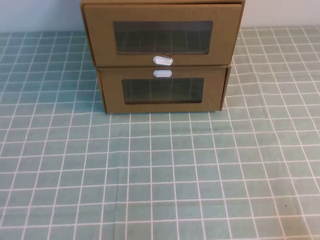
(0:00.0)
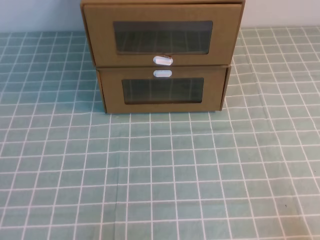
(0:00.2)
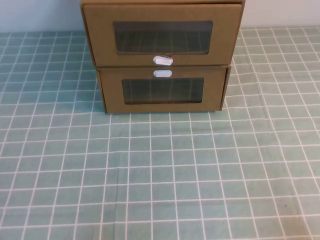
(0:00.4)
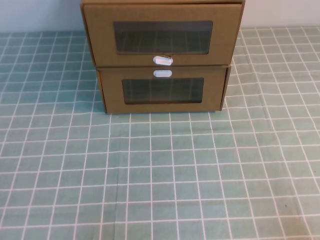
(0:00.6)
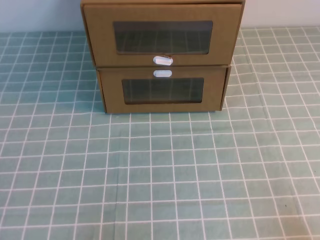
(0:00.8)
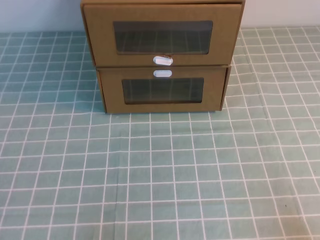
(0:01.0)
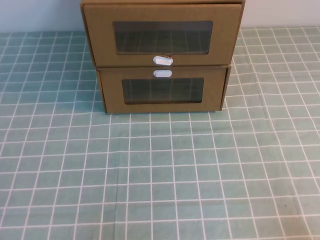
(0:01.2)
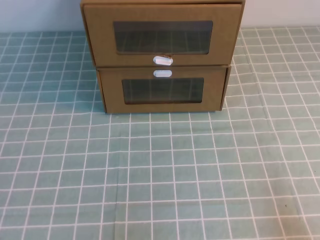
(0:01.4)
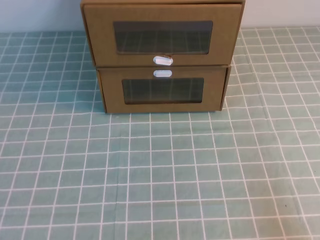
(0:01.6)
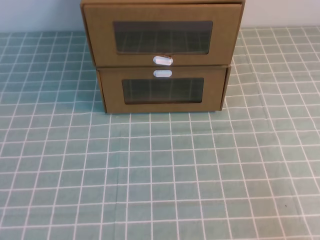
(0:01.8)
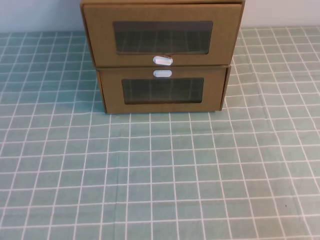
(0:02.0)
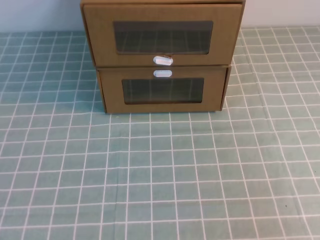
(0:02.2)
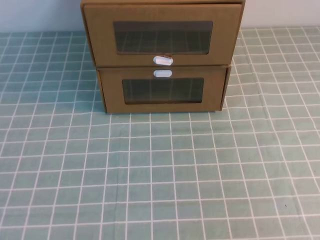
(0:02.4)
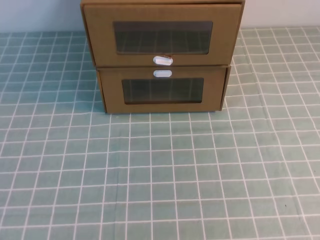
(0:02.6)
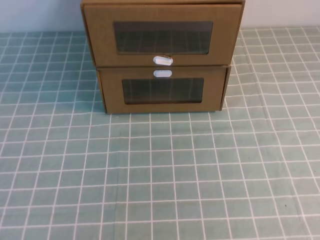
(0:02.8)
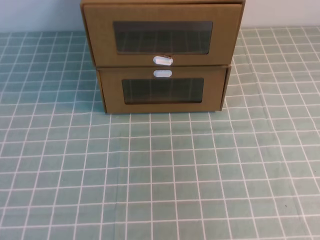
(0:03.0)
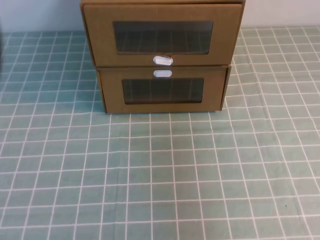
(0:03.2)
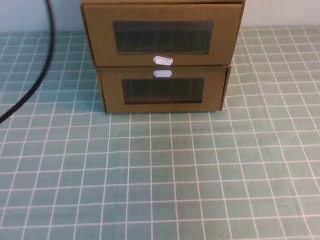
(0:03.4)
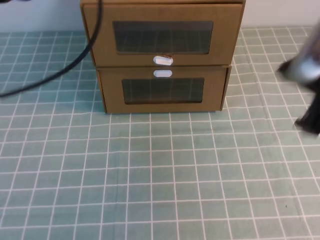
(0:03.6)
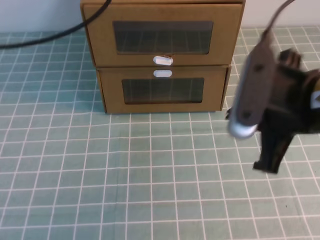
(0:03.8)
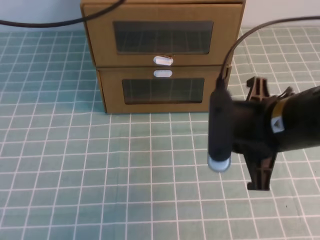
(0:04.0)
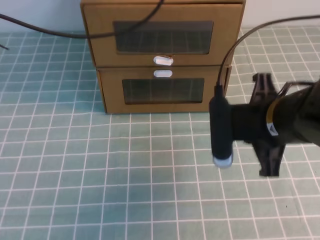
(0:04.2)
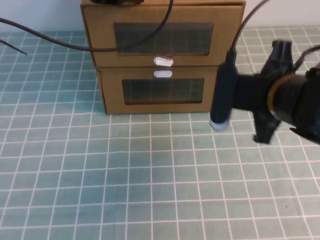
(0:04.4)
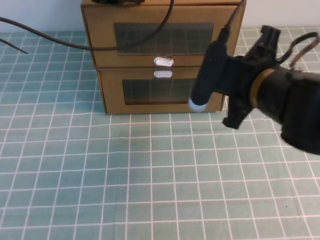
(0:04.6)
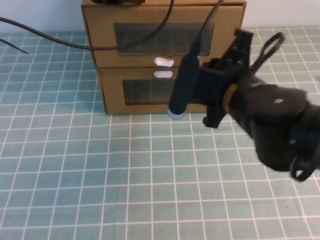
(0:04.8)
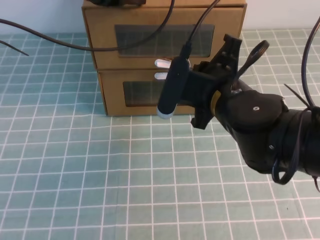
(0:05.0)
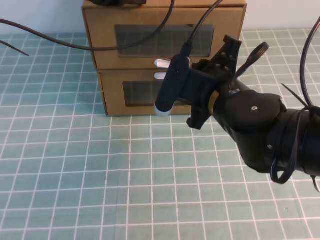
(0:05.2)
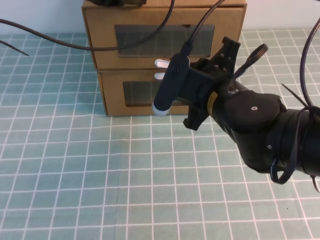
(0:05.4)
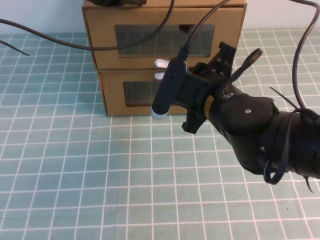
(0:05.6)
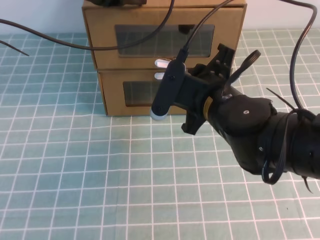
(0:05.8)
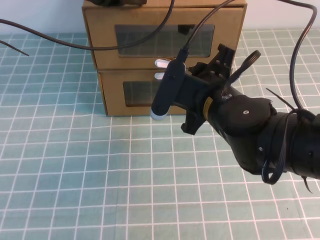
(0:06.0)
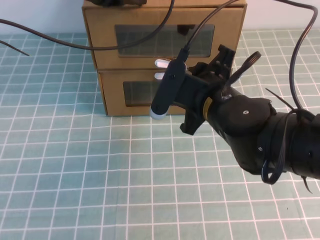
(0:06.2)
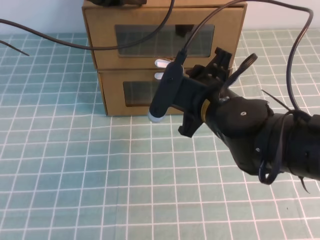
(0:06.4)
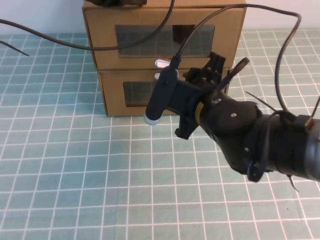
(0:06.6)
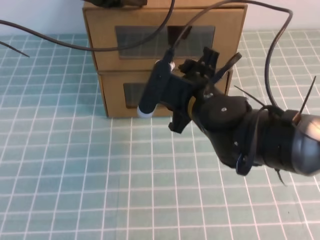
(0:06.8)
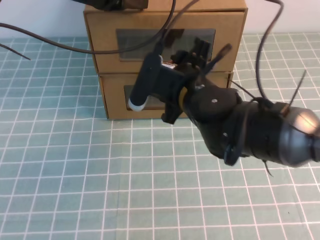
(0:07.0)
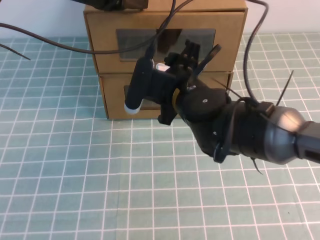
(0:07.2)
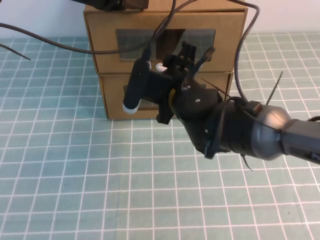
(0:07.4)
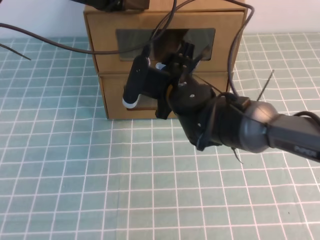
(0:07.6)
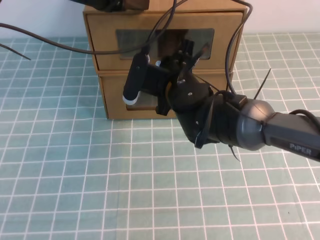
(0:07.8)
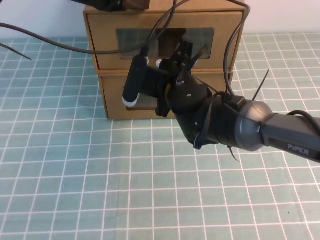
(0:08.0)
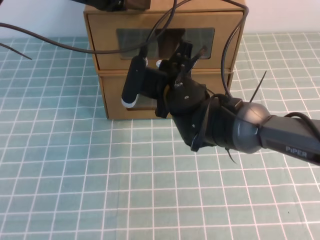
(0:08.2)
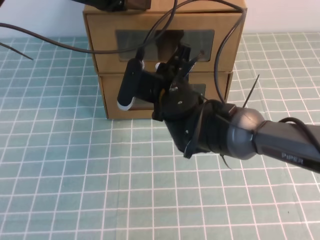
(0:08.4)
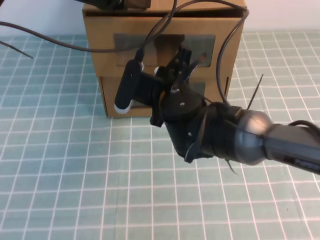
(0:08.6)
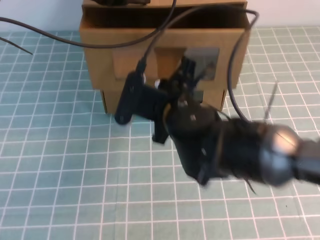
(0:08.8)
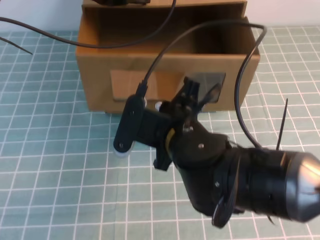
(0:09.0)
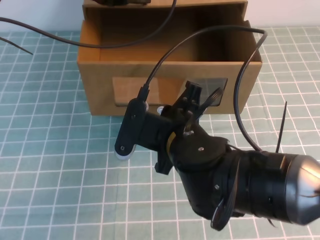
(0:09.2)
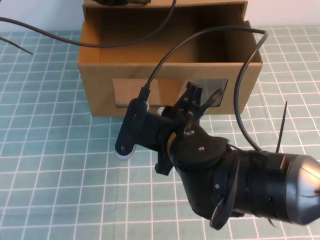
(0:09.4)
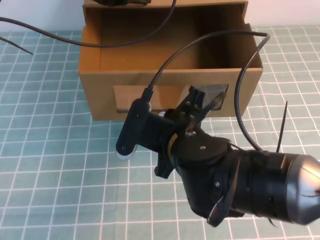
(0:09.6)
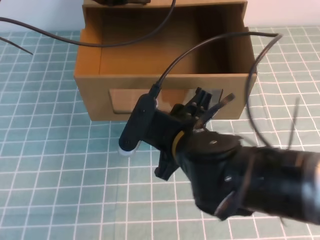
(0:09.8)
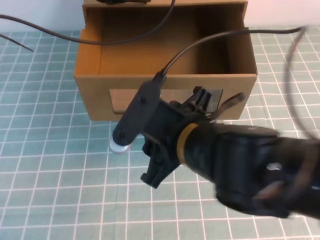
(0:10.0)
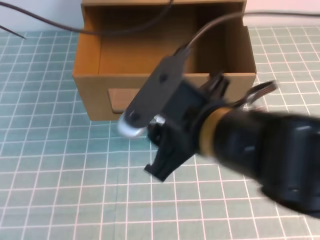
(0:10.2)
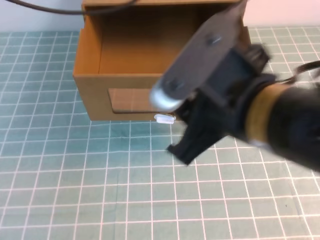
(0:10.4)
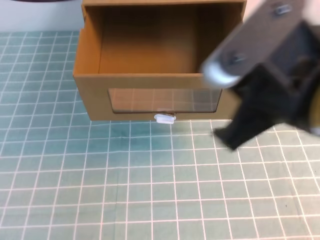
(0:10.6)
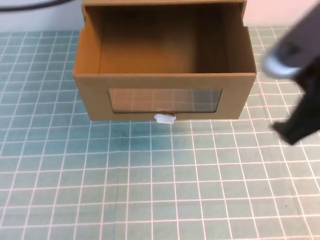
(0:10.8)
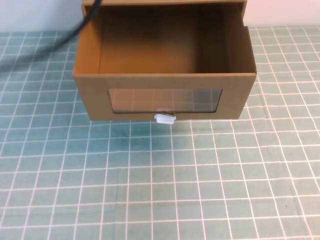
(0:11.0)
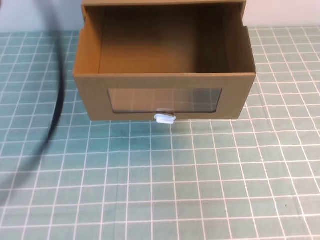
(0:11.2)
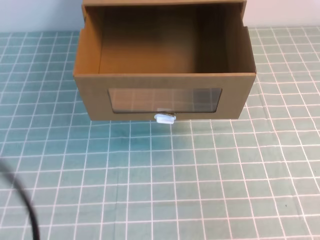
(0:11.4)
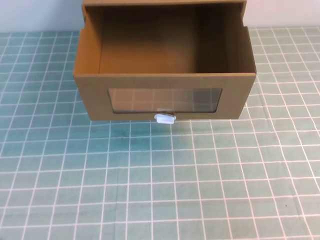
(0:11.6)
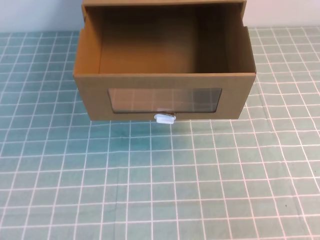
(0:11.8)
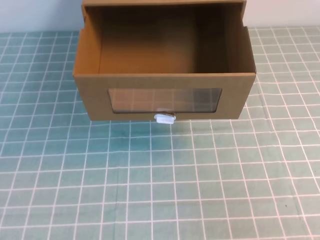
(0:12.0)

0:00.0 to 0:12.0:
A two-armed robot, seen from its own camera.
Task of the whole recording: open the shoebox on the cyan tablecloth.
0:01.6 to 0:03.0: The right gripper moves upward, about 25 cm.
0:03.0 to 0:04.4: The left gripper heads forward and to the right, covering approximately 35 cm. The right gripper goes roughly 30 cm downward, forward and to the left.
0:04.4 to 0:06.0: The right gripper travels to the left by about 5 cm, and opens up.
0:06.0 to 0:07.6: The right gripper shifts about 10 cm forward and to the left.
0:07.6 to 0:09.0: The right gripper goes approximately 10 cm backward, and closes.
0:09.0 to 0:10.4: The right gripper is displaced upward, backward and to the right by roughly 15 cm, and opens; the left gripper shifts roughly 10 cm upward and backward.
0:10.4 to 0:12.0: The right gripper goes about 25 cm to the right and backward, and closes; the left gripper shifts roughly 35 cm backward and downward.

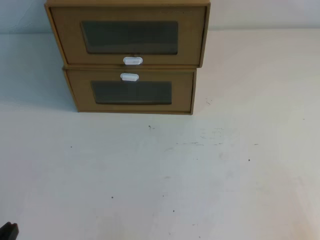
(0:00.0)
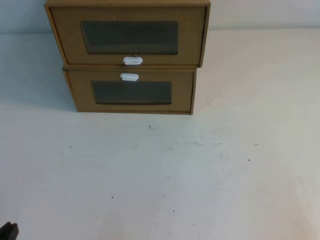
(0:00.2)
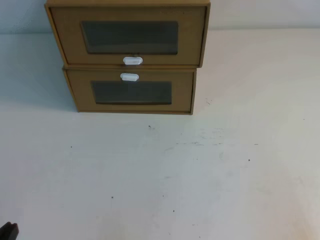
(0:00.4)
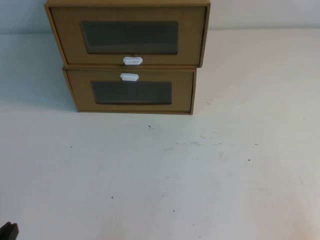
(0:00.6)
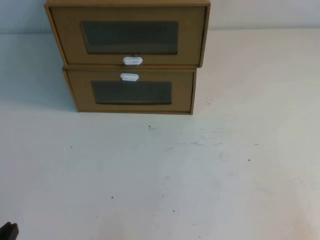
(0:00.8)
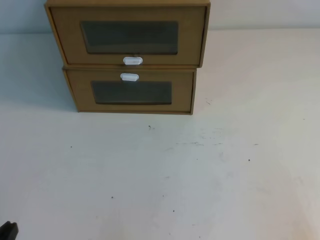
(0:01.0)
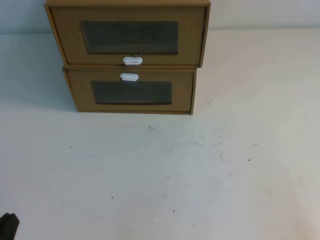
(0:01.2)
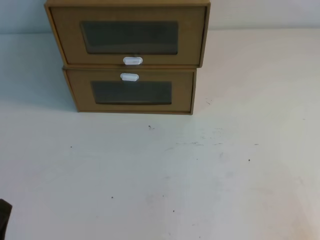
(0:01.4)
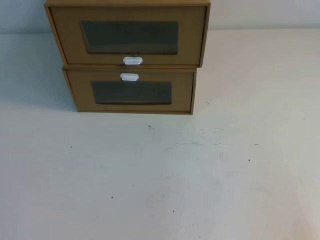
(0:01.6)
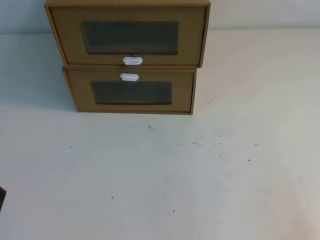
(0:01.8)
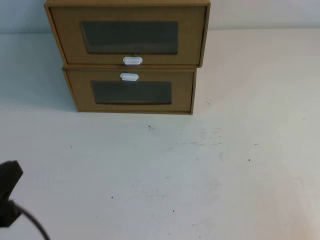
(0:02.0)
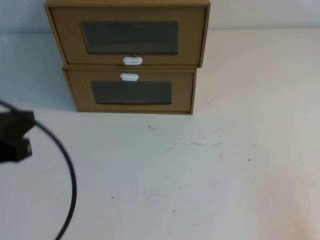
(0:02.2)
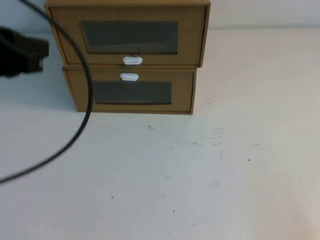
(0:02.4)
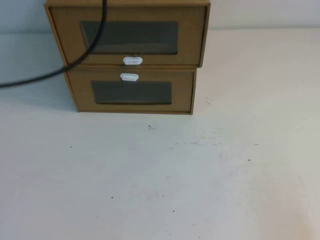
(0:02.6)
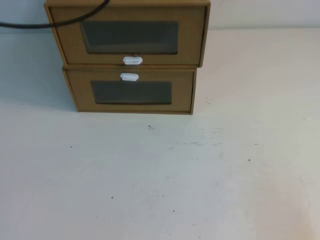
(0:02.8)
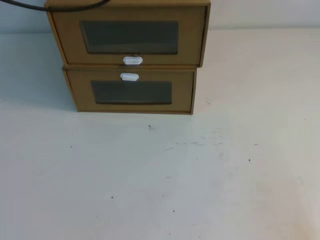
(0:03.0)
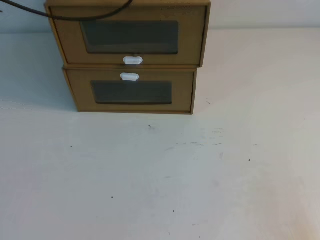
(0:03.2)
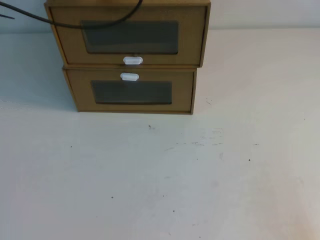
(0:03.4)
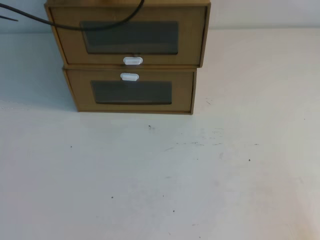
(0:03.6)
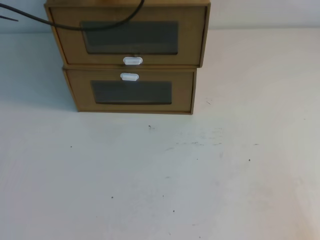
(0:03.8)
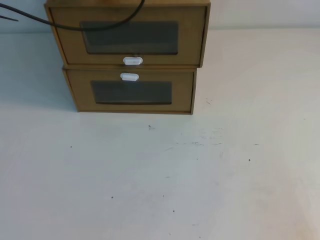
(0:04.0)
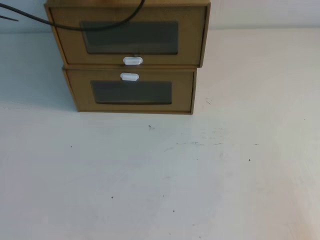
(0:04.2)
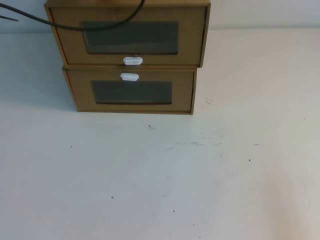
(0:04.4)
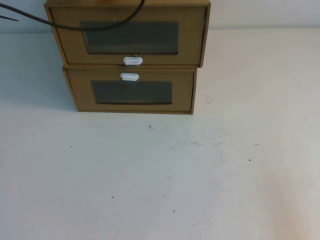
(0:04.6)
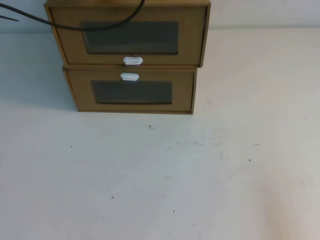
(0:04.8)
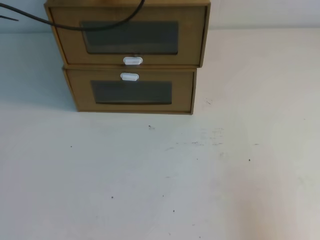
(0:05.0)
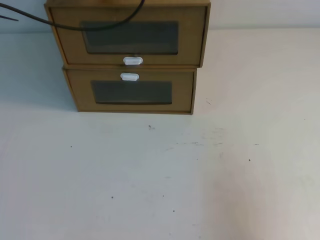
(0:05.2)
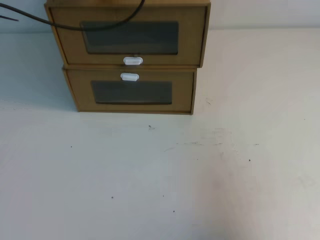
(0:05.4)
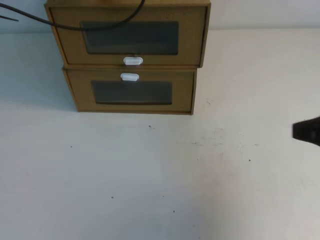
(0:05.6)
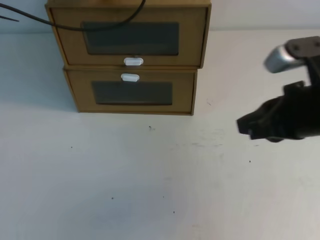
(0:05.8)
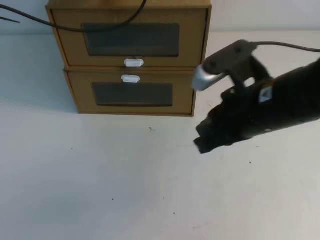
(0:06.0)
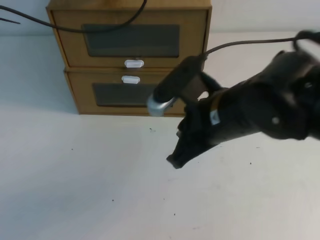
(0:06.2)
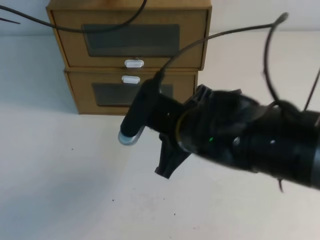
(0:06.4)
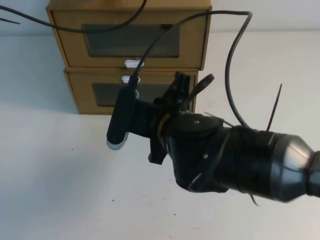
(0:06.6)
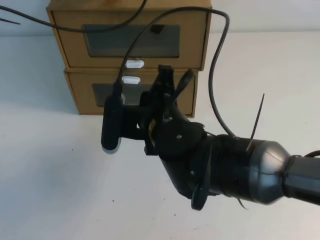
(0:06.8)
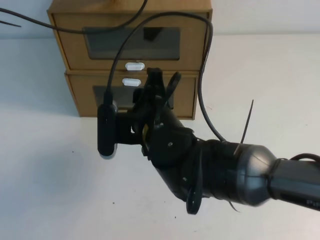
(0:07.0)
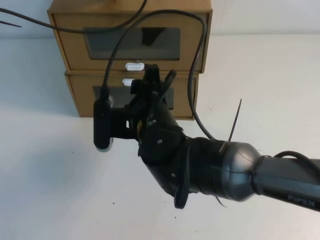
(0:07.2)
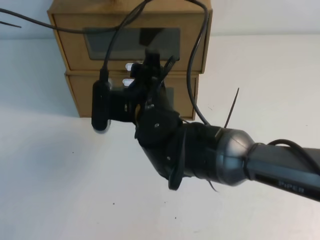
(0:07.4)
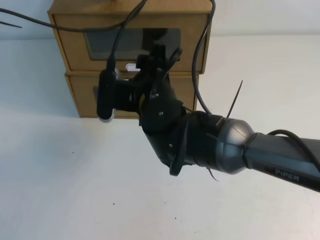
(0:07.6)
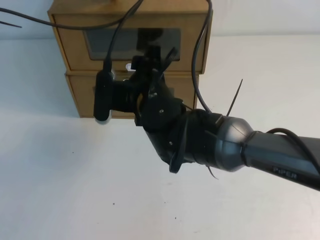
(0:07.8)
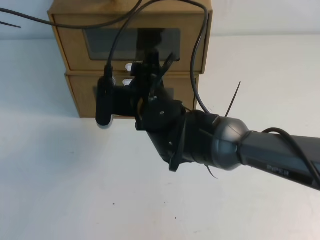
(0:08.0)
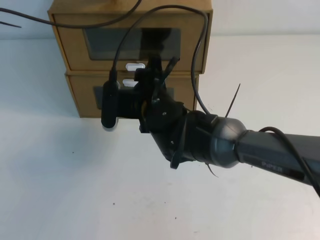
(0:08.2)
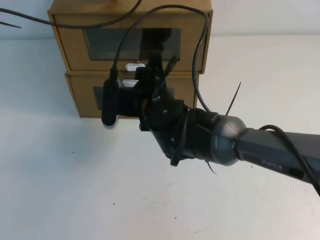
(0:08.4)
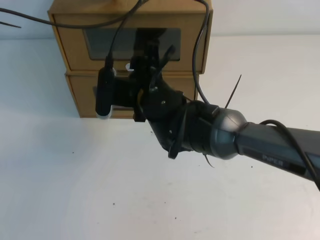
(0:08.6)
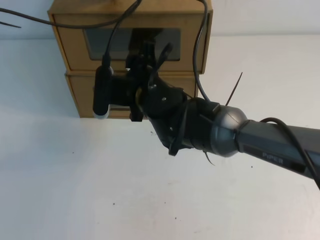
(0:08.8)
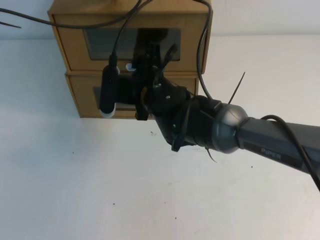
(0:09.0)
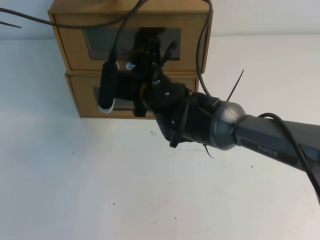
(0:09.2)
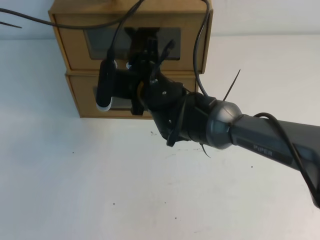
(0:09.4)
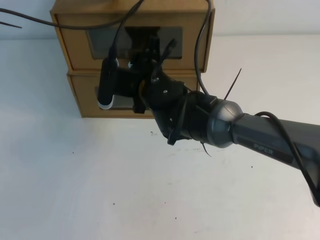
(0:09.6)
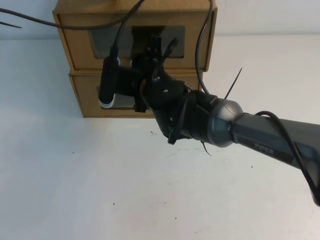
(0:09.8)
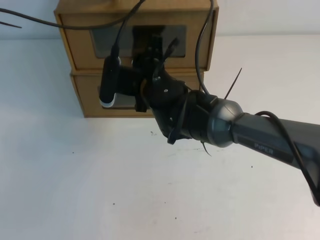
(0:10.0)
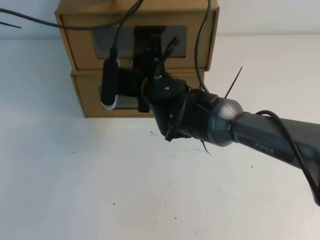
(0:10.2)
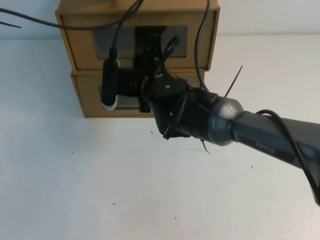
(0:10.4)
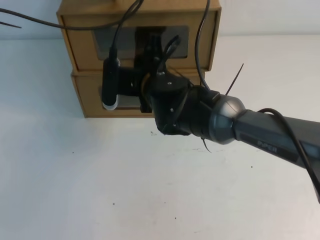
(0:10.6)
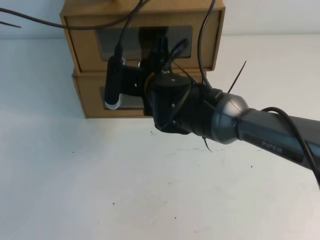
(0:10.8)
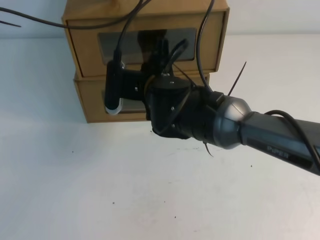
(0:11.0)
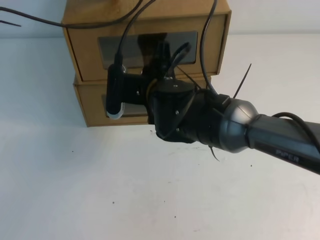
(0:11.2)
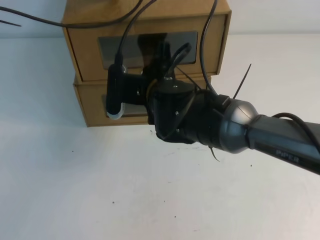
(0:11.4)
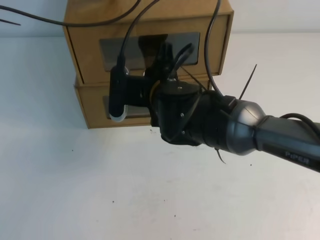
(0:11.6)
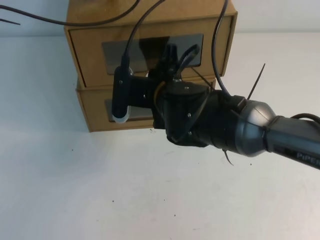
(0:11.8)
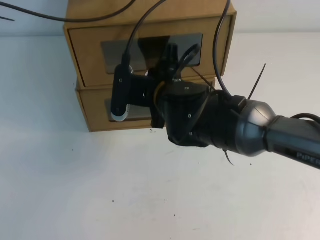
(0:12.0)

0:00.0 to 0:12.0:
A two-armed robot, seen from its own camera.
Task of the whole recording: open the shoebox on the table.
0:03.0 to 0:04.4: The left gripper travels downward and forward by roughly 10 cm.
0:04.4 to 0:06.0: The right gripper travels forward, to the left and upward by some 30 cm.
0:06.0 to 0:07.6: The right gripper moves to the left and forward, about 20 cm, and opens its fingers.
0:07.6 to 0:09.0: The grippers move only a little.
0:09.0 to 0:10.4: The right gripper closes its fingers.
0:10.4 to 0:12.0: The right gripper changes place by some 5 cm.
